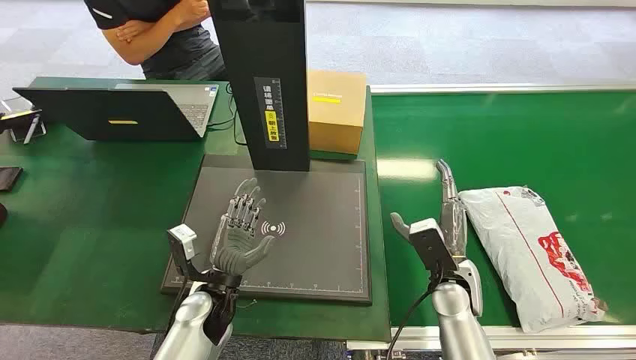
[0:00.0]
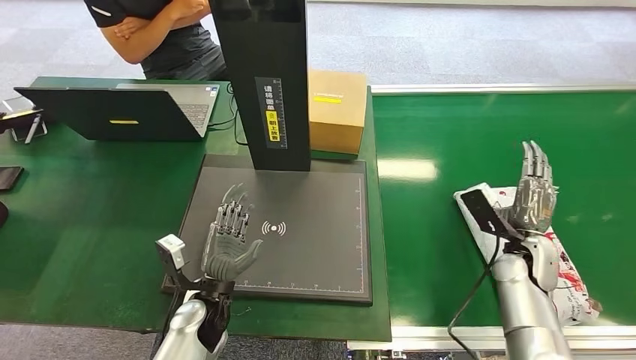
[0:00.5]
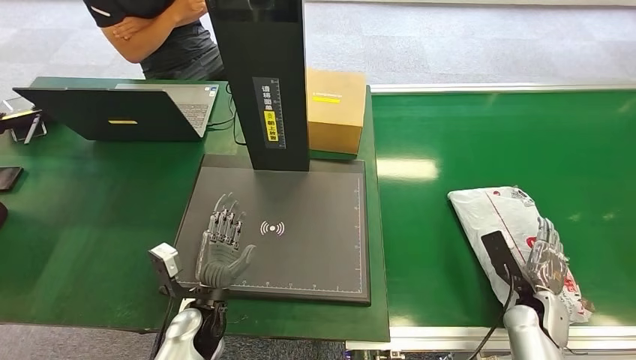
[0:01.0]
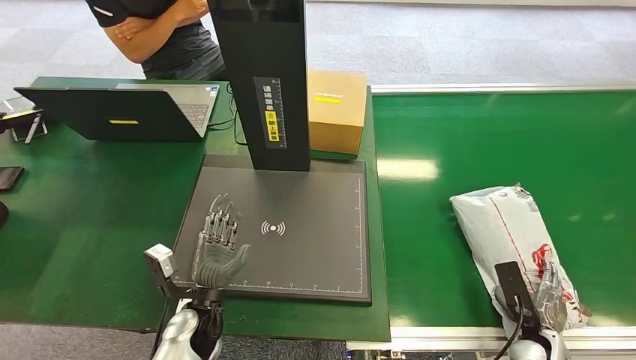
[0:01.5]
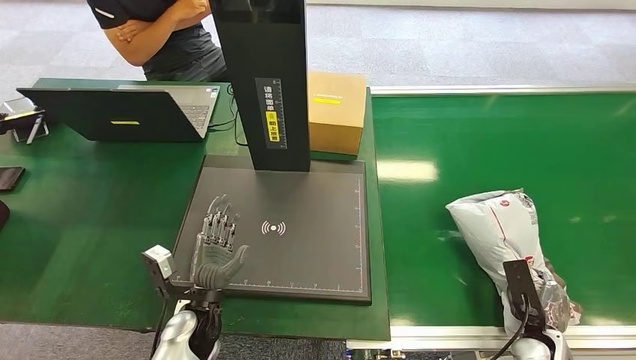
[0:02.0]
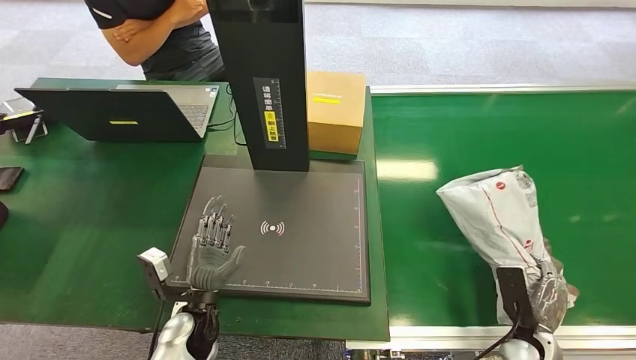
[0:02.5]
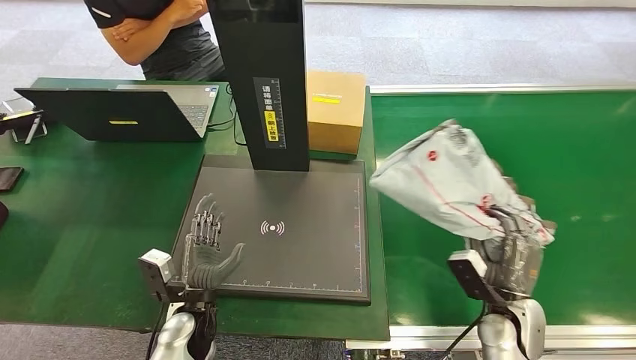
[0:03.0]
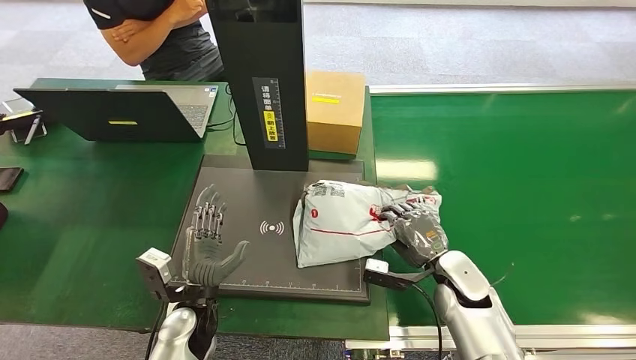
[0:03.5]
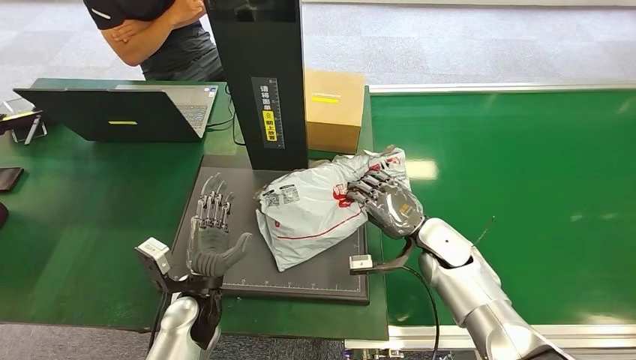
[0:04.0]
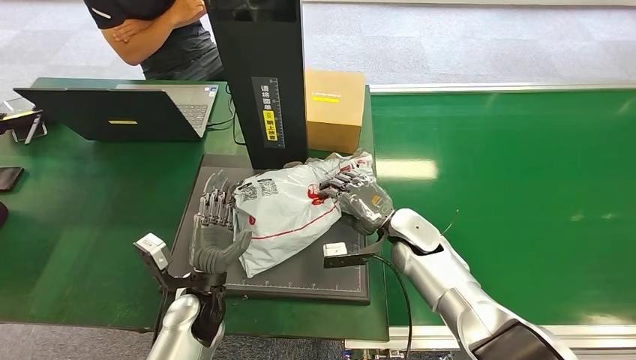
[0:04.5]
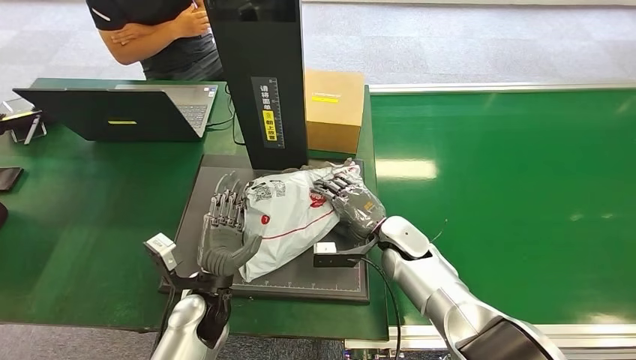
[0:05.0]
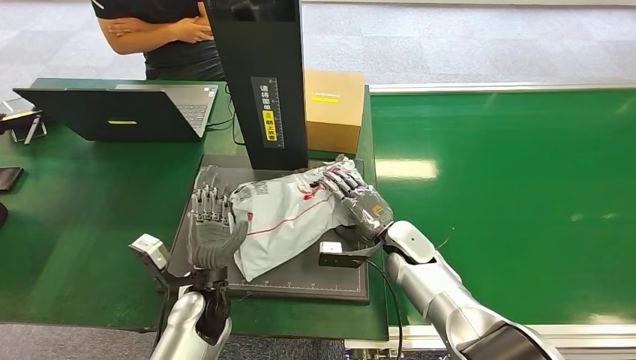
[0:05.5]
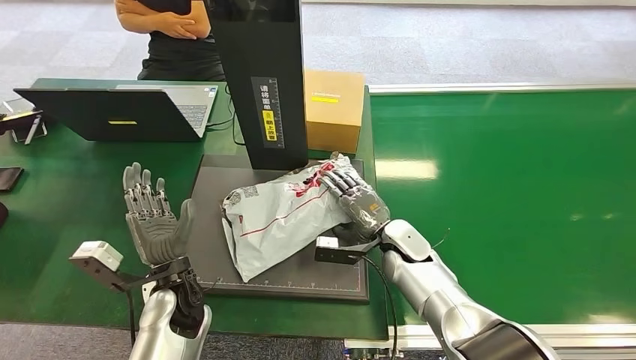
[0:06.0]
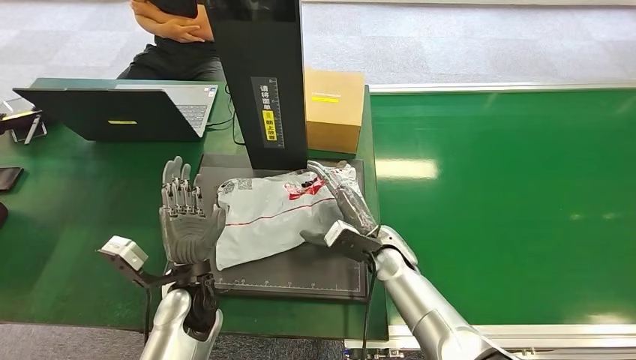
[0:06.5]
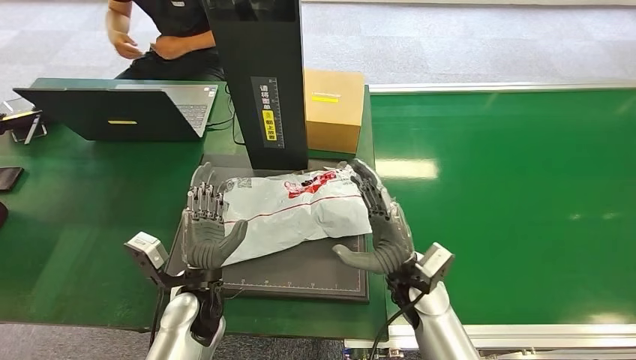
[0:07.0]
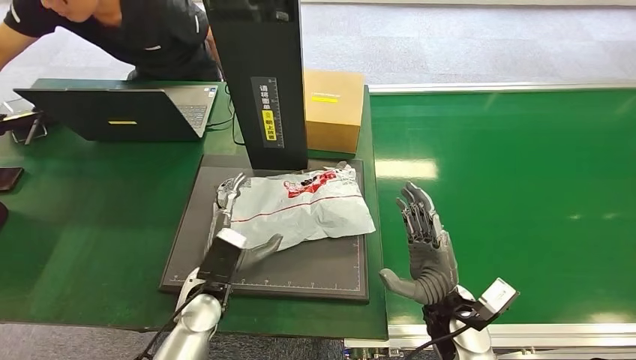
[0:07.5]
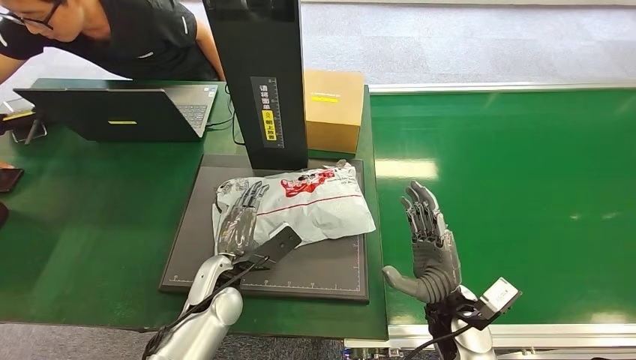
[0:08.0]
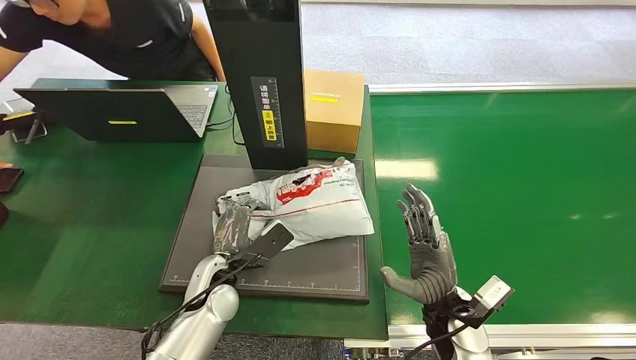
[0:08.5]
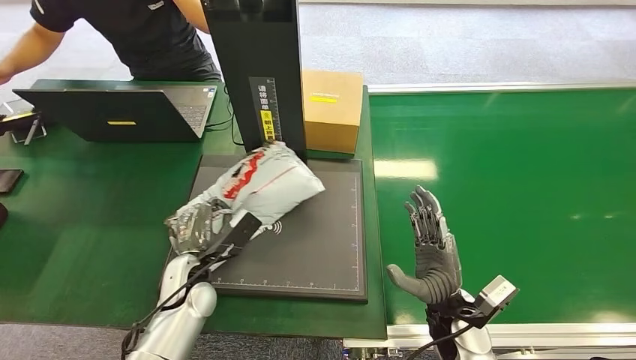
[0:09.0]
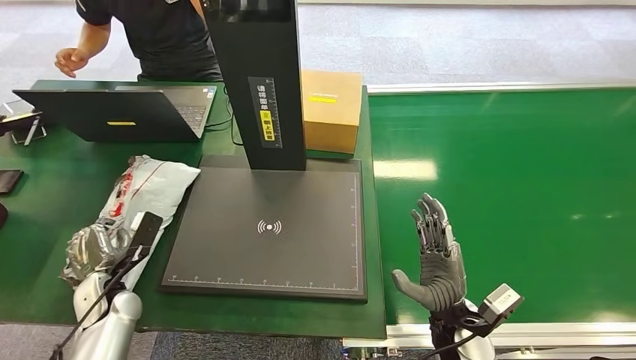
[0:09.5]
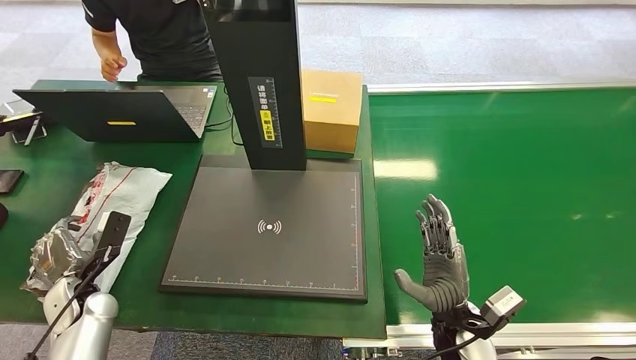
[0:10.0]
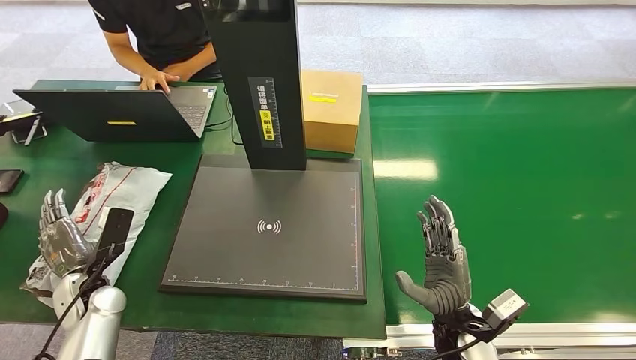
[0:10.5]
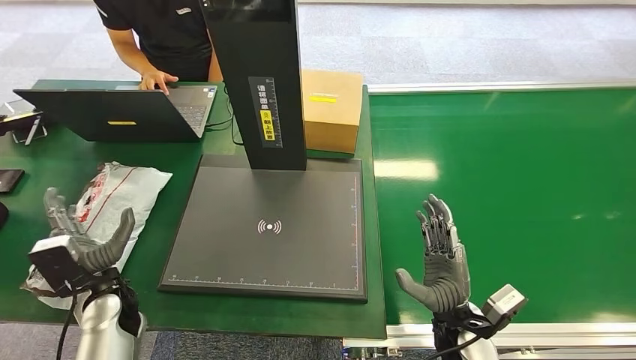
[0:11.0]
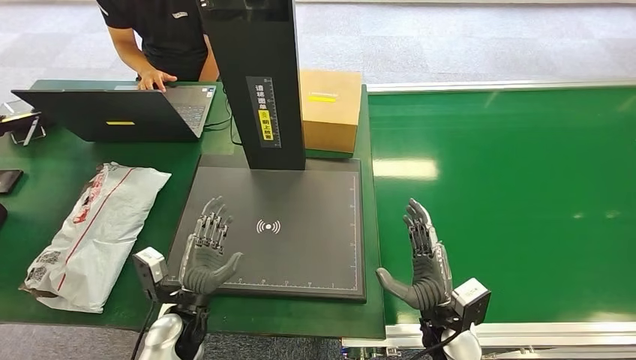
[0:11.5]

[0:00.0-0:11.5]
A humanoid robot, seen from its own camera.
Task of the whole recording: Weigh the package on the weighing device and place it in the left basket.
Step, 0:00.0 to 0:02.5: Pick up the package from the conveyor belt.
Step, 0:03.0 to 0:07.5: Place the package onto the inbound machine.
Step, 0:08.0 to 0:09.0: Pick up the package from the inbound machine.
Step, 0:09.5 to 0:11.5: Place the package into the parcel locker.
0:09.5 to 0:11.5: The left hand heads to the right, covering some 15 cm.
